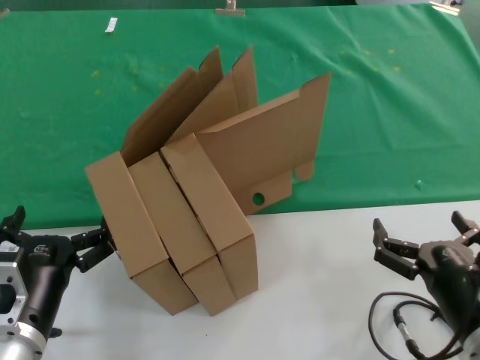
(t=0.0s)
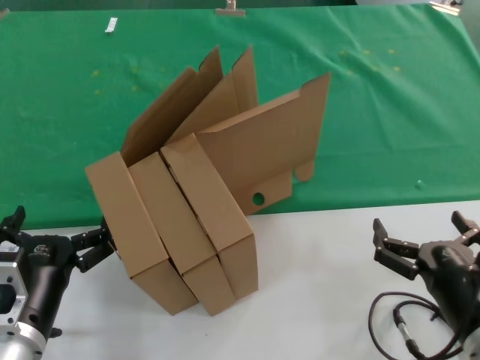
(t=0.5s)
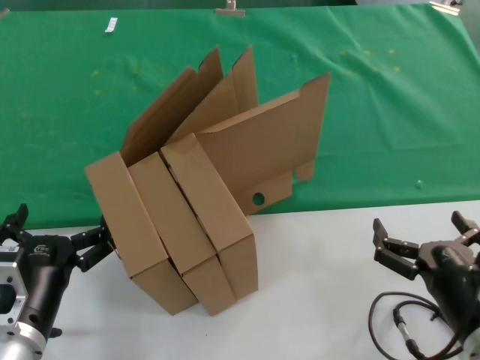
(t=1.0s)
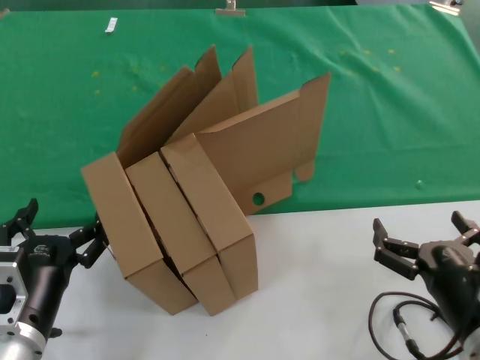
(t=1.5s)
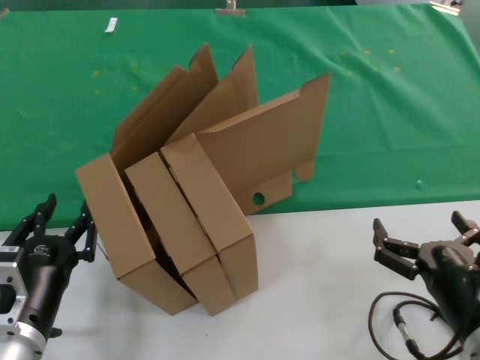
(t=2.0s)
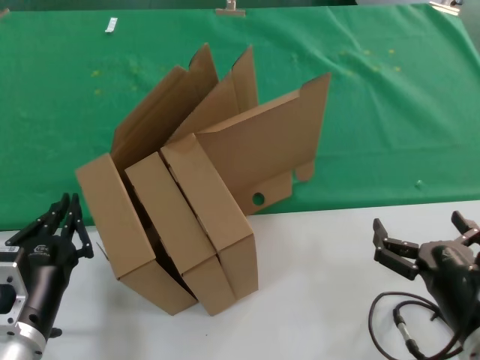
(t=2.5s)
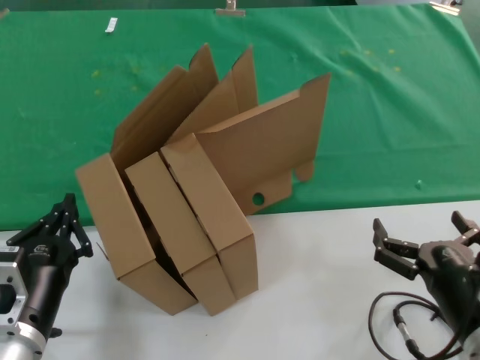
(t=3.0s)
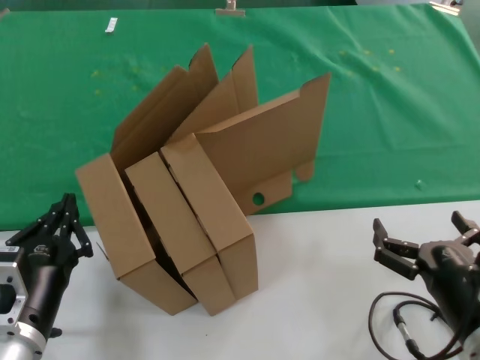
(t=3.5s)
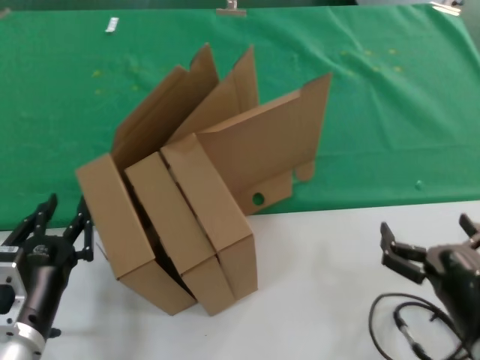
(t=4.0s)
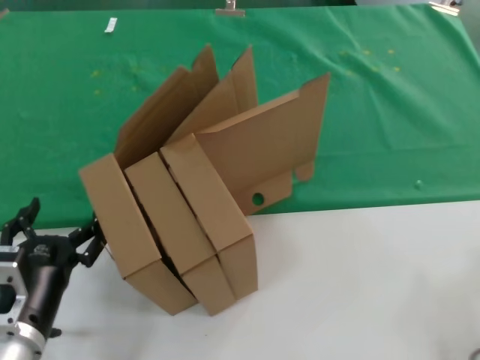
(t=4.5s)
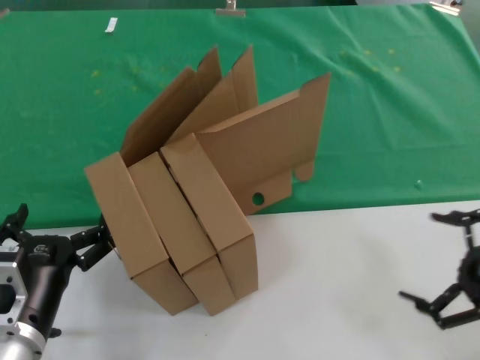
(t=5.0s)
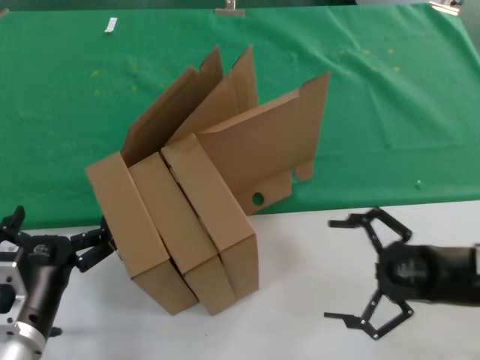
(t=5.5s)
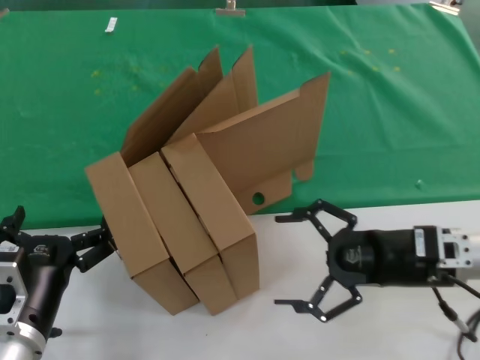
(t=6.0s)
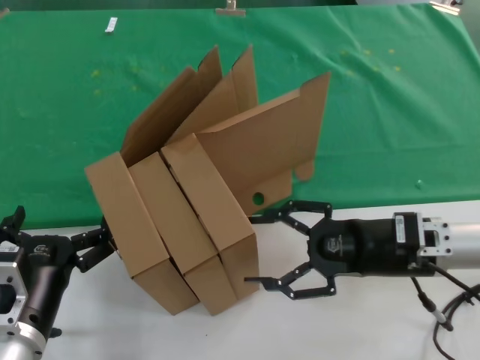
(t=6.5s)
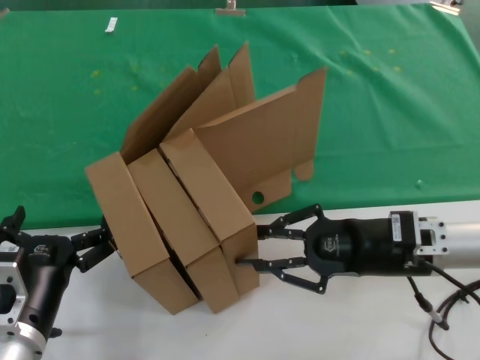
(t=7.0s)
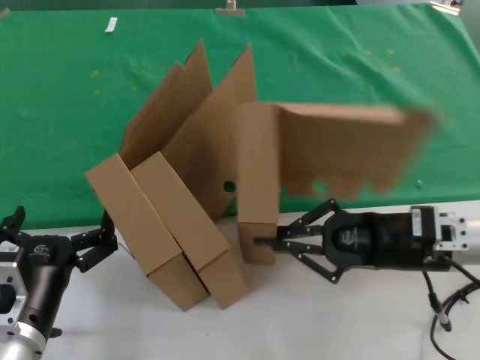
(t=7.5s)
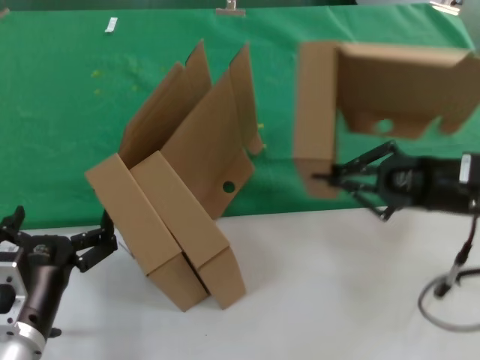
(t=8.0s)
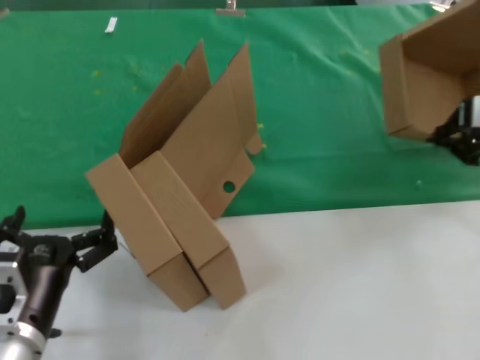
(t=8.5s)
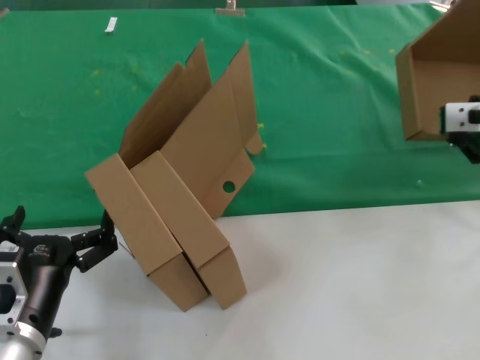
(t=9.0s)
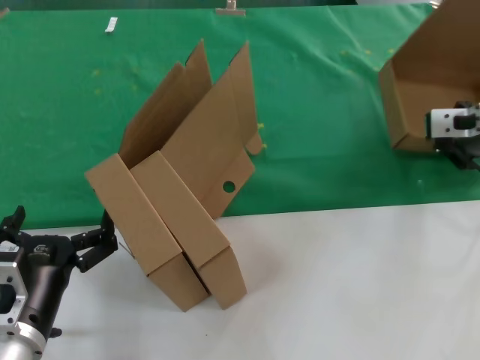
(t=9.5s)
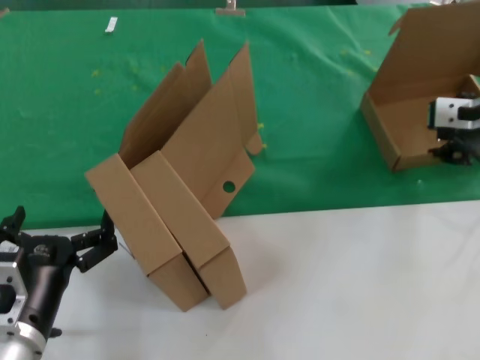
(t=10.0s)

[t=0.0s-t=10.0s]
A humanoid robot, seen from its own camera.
Task of the whole recording: pick up the paper box and put it at the back.
Step, t=0.0s to t=7.0s: Grasp the paper box.
Step, t=7.5s to t=10.0s: Place the paper box on the table.
t=0.0s to t=4.0s: Both hands stay about where they are.
t=4.0s to t=6.0s: The right hand goes some 15 cm forward.
t=6.0s to t=8.0s: The right hand shifts approximately 10 cm upward and to the right.
t=8.0s to t=10.0s: The right hand travels upward and forward by approximately 10 cm.

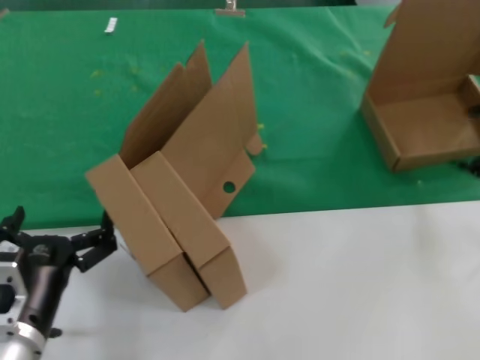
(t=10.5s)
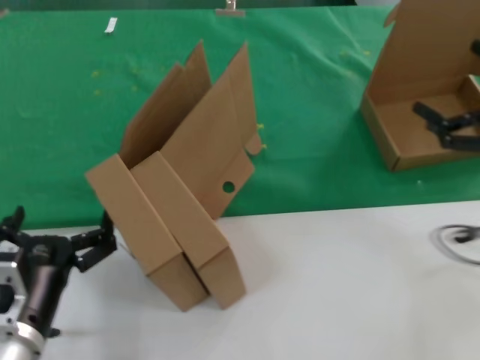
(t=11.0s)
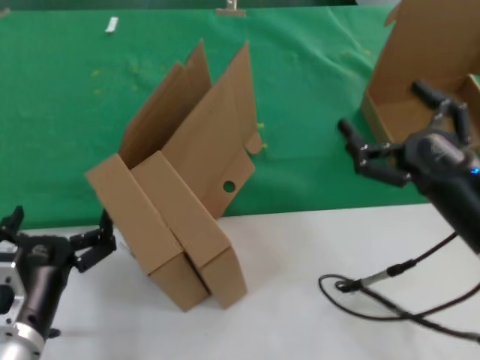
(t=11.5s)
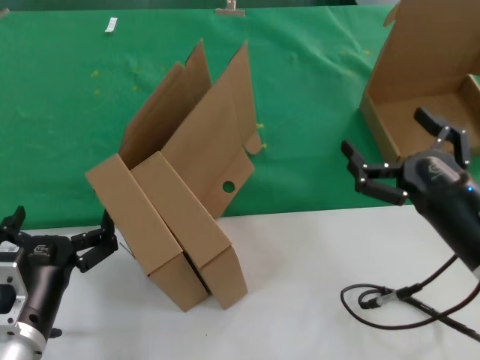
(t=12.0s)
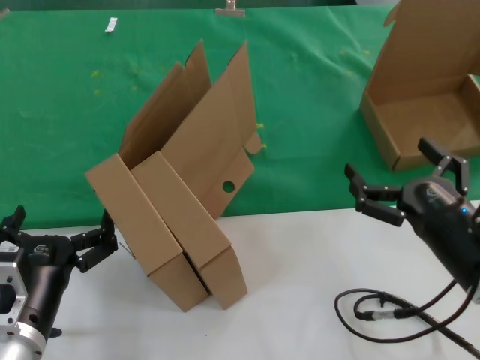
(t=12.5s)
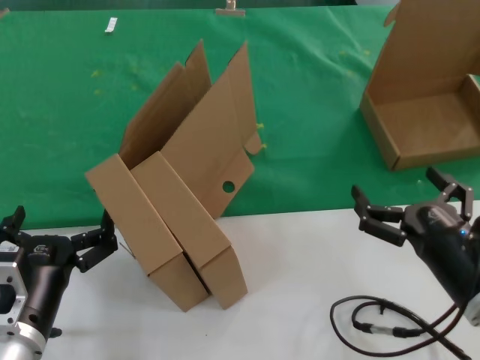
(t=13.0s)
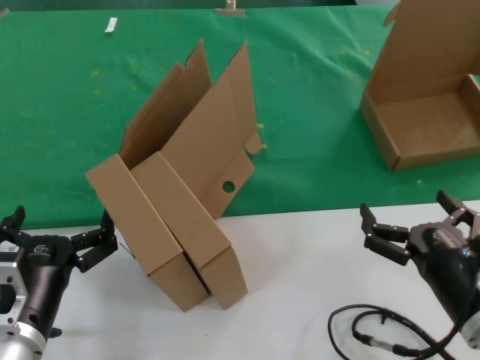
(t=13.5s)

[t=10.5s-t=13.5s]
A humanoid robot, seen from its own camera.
Task of the whole recording: pick up the paper box and put it at the back.
t=10.5s to t=12.0s: The right hand moves downward, to the left and backward, approximately 25 cm.
t=12.0s to t=13.5s: The right hand heads backward, covering about 5 cm.
